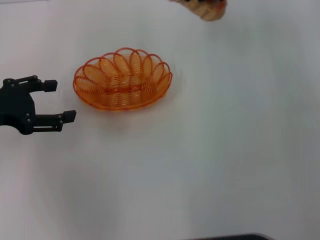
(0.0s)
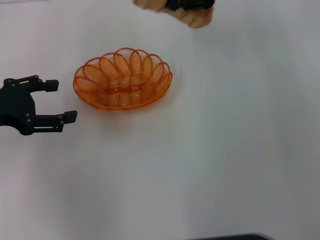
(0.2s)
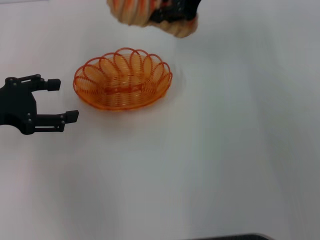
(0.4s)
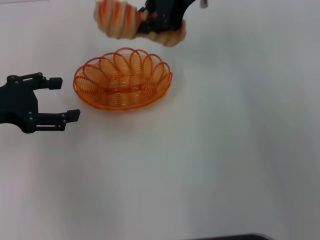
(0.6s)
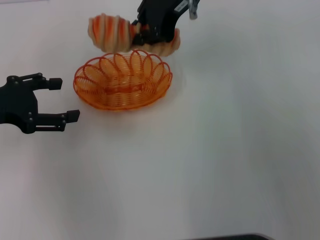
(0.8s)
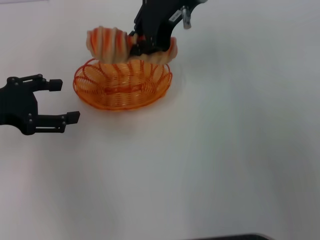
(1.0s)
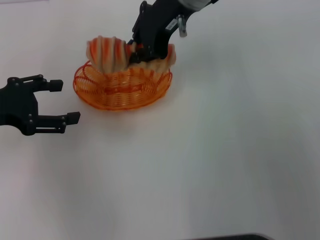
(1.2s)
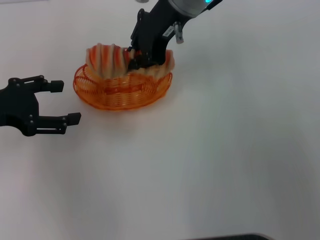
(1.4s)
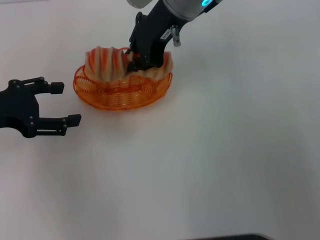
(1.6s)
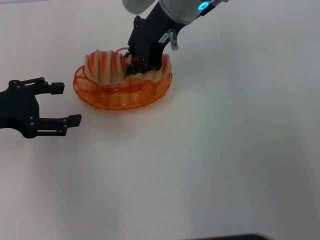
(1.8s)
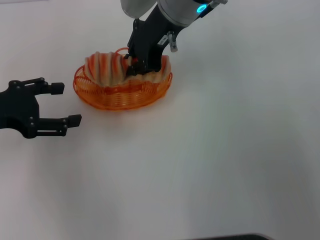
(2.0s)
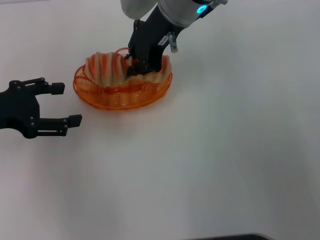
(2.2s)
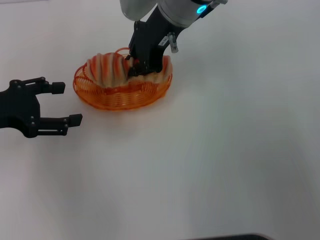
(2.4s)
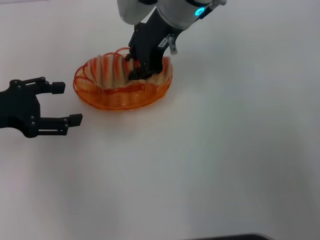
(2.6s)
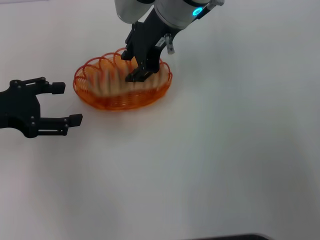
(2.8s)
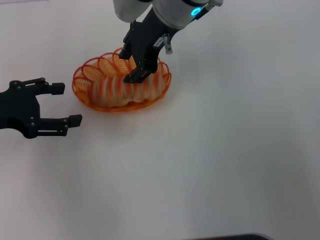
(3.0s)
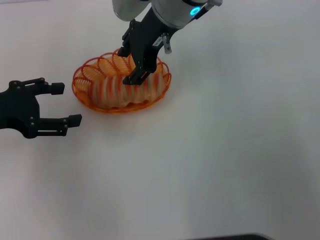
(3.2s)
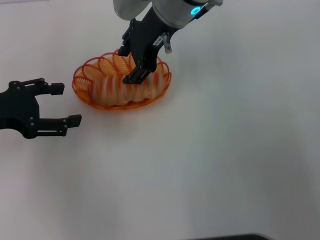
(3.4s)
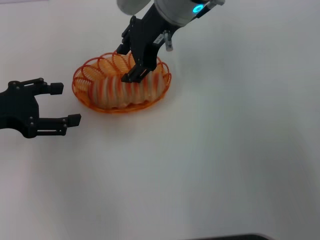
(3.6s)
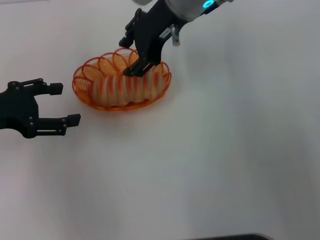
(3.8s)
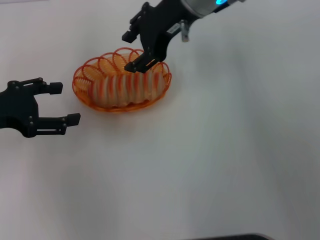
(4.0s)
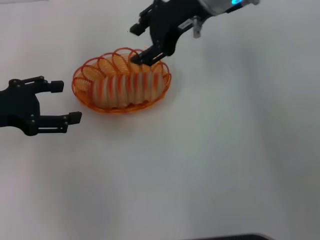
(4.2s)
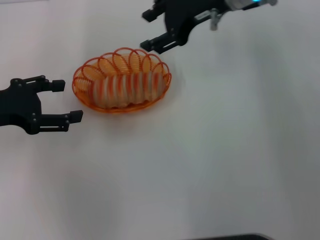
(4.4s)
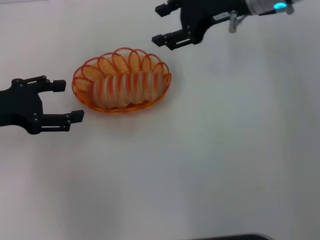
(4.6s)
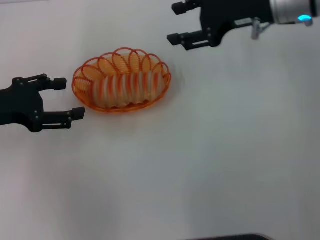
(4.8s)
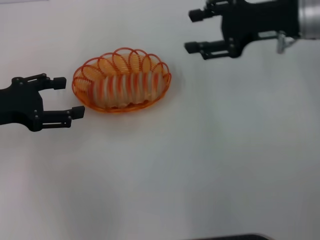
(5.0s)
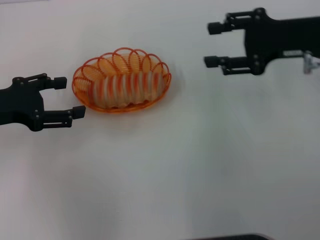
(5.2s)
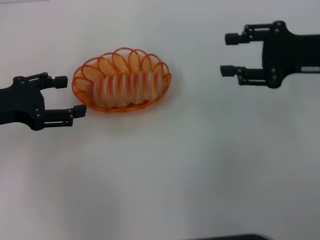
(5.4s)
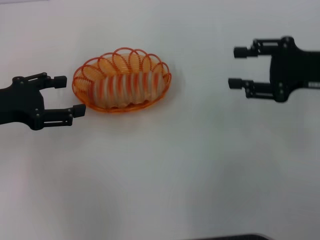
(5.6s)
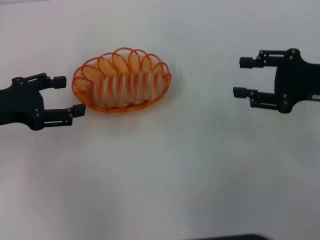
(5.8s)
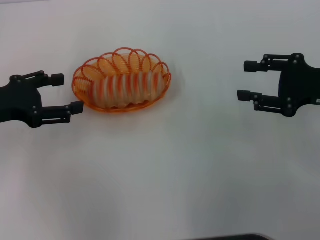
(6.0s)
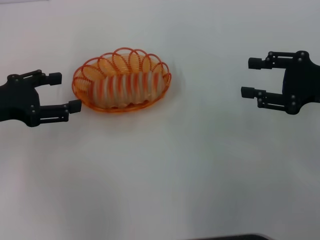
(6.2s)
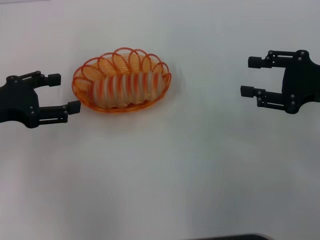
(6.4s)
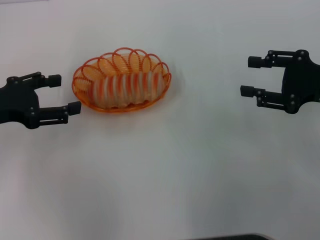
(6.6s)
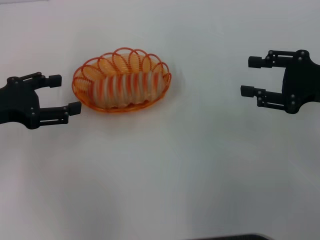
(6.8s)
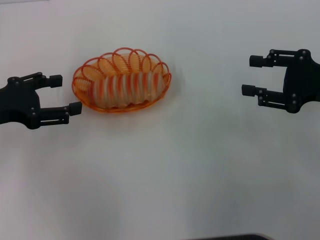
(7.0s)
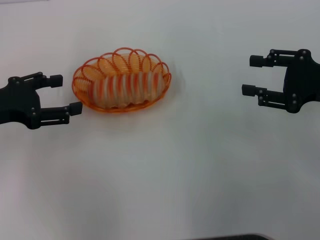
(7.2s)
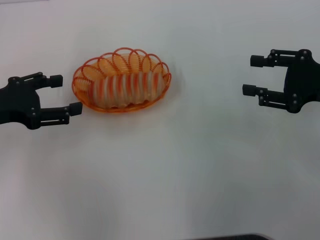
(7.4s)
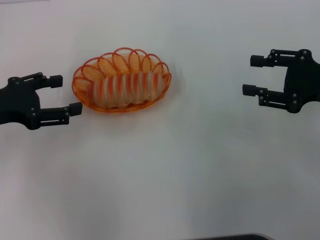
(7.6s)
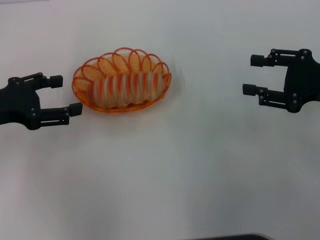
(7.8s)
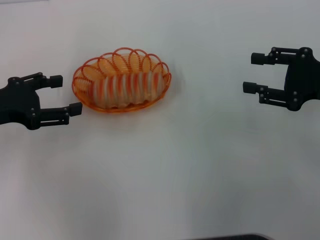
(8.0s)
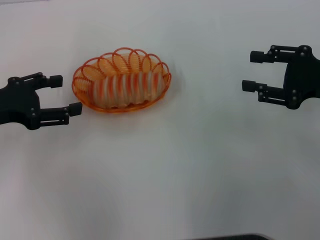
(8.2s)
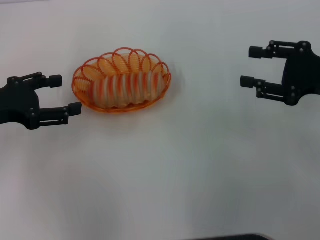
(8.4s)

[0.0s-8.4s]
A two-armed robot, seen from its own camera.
Step, 0.0s to 4.2s: Place the long bread into the basket with the right gripper.
0.0s to 1.4s: The right gripper is displaced to the left by about 15 cm.
1.4s to 2.8s: The grippers move only a little.
2.8s to 4.2s: The right gripper goes roughly 5 cm to the right, and opens.
4.2s to 5.6s: The right gripper heads to the right, backward and downward, covering roughly 25 cm.
5.6s to 7.0s: The grippers make only small movements.
7.0s to 8.4s: Both grippers stay put.

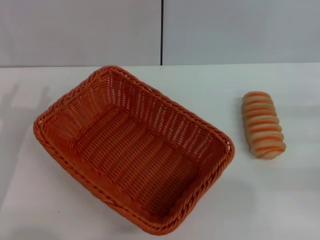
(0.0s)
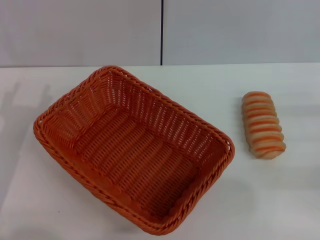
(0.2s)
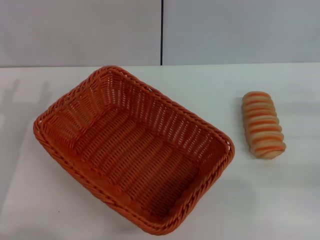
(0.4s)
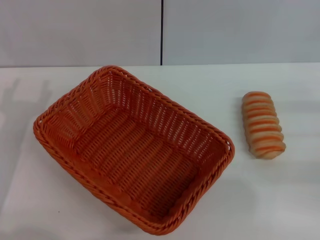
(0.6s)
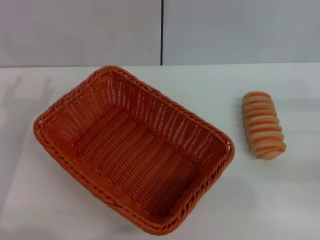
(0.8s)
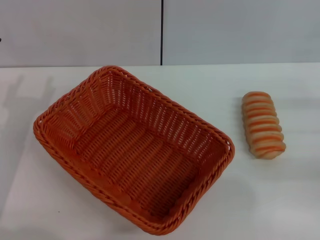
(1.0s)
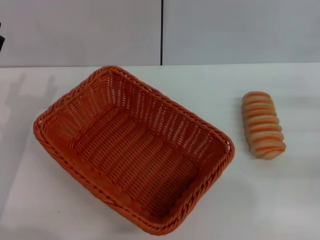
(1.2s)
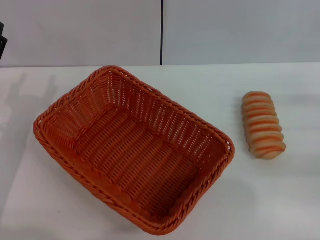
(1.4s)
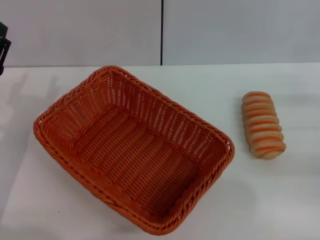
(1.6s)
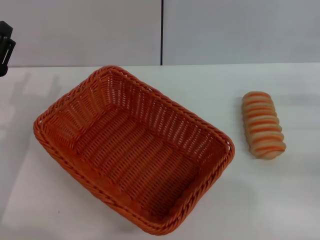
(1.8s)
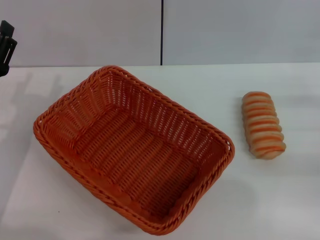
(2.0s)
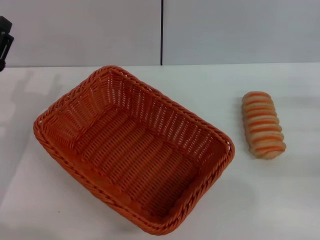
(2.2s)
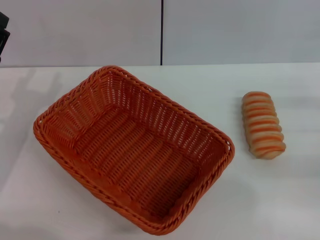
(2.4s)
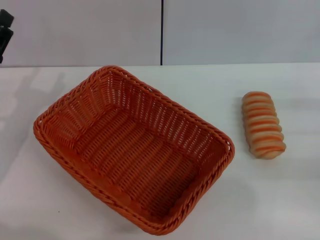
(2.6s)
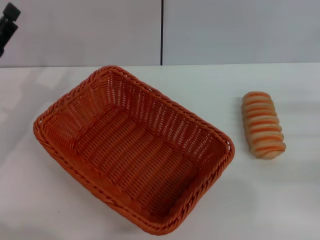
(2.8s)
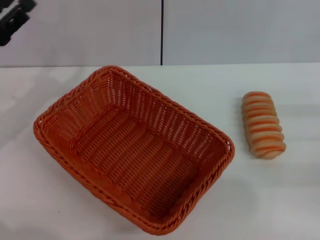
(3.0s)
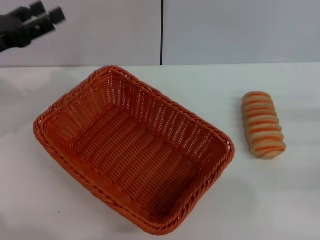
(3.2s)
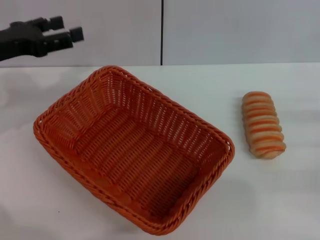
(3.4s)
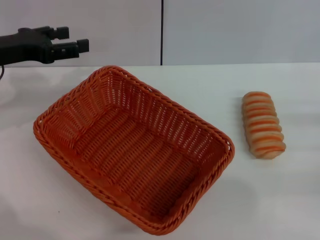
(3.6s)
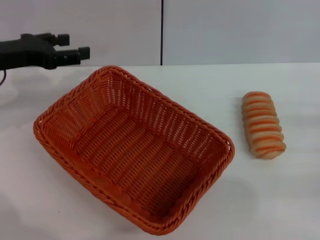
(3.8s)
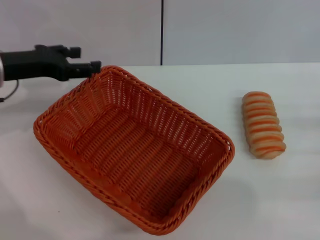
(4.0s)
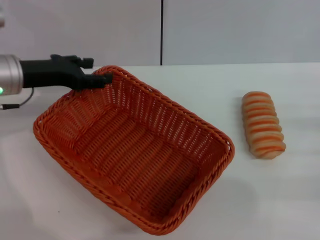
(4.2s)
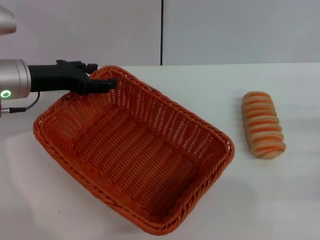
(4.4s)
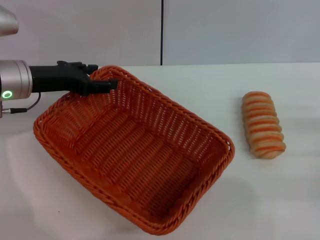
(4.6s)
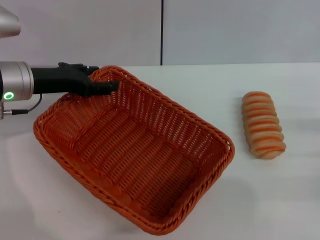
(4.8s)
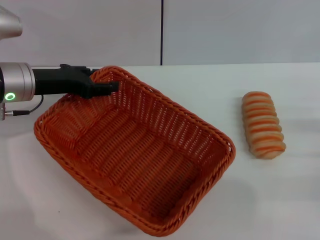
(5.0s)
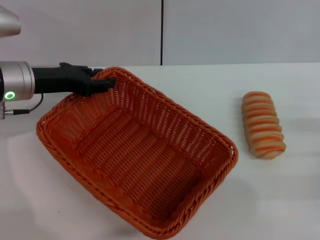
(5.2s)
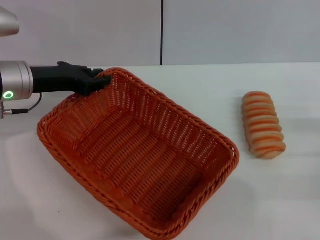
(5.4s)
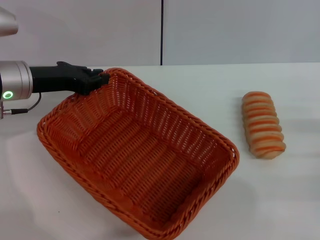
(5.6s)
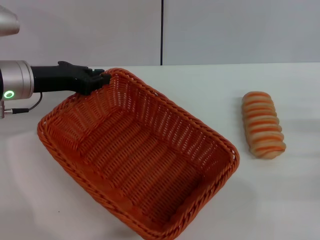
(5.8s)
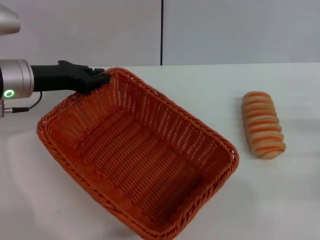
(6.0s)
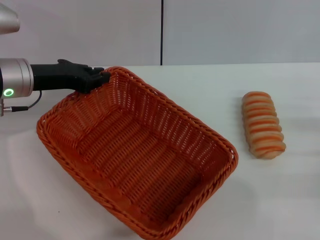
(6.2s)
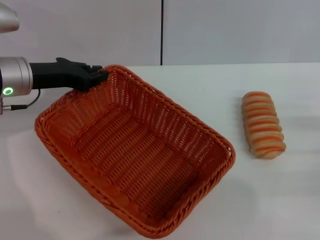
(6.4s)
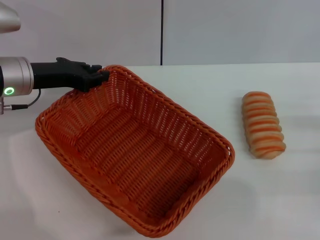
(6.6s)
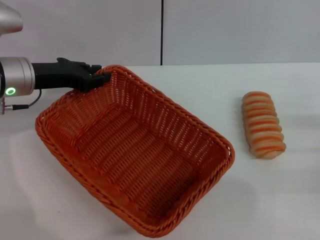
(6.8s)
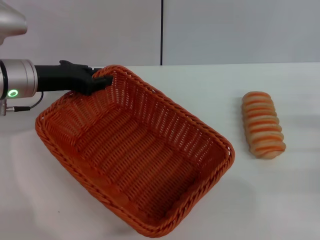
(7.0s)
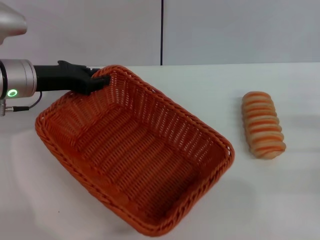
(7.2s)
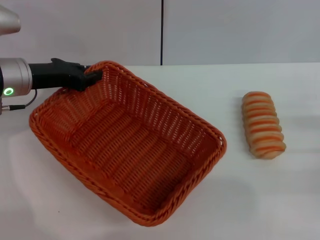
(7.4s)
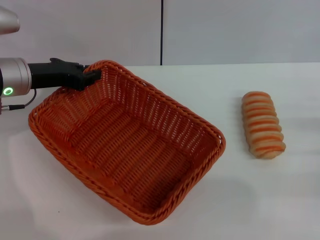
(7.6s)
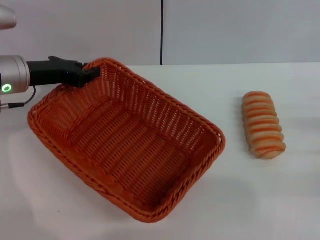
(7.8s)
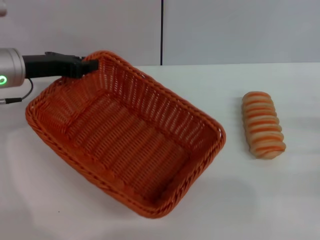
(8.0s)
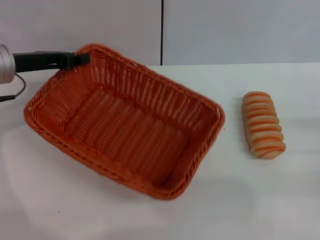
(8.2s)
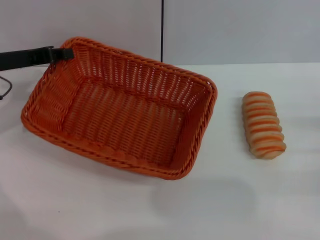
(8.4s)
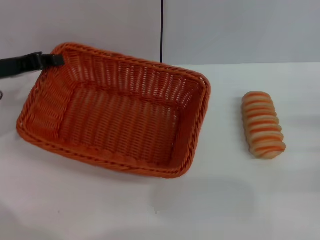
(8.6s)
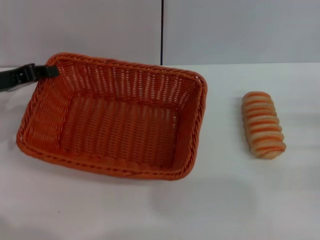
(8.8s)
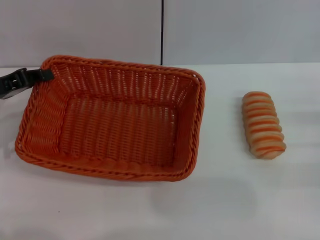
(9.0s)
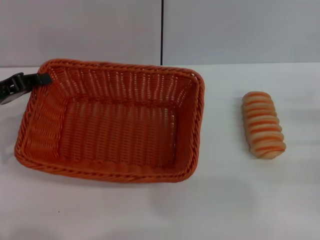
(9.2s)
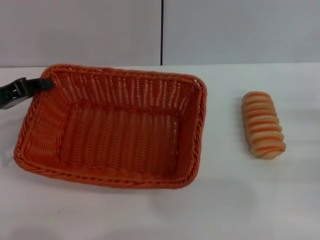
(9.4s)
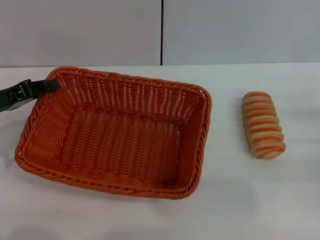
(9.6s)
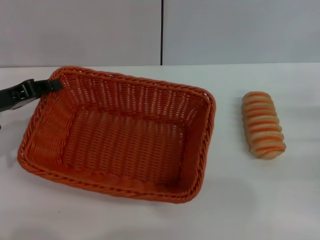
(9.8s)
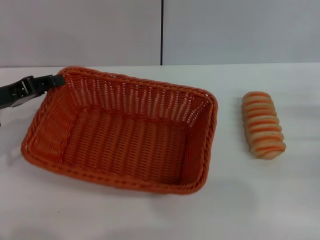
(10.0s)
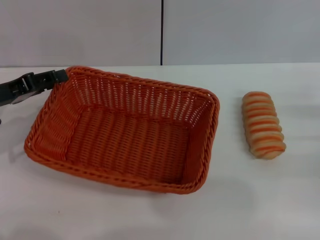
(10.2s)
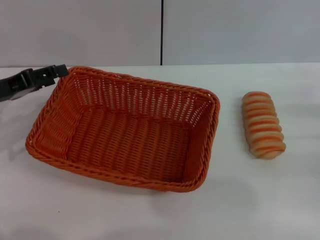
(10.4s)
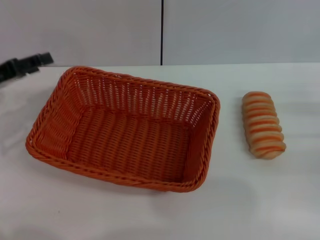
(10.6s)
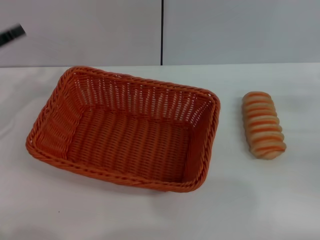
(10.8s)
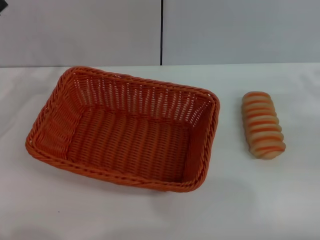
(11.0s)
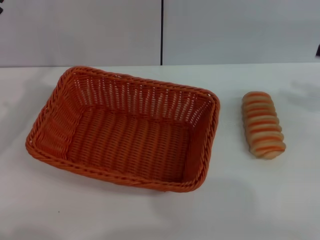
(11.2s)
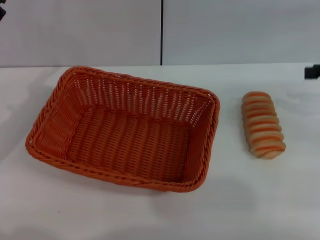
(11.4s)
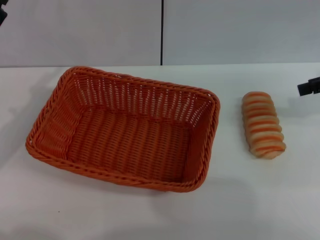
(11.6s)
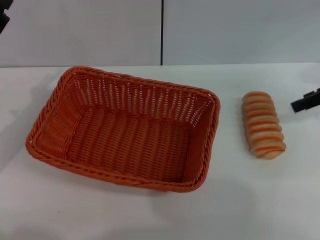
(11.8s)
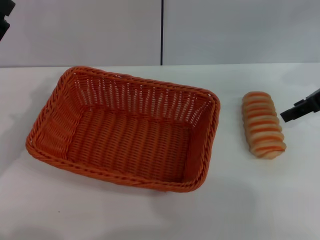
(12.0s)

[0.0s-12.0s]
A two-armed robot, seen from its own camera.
Step, 0.0s to 8.2s: Pick up the light basket with the left gripper.
Step, 8.6s to 10.4s: Place the light basket in the center of view with the left gripper.
1.6s to 3.0s: The left gripper is displaced upward and forward by some 10 cm.
3.0s to 4.4s: The left gripper heads to the right and forward, covering approximately 10 cm.
4.4s to 6.0s: The left gripper closes.
6.0s to 7.6s: The grippers stay close to where they were, moving slightly.
7.6s to 9.0s: The left gripper heads to the left and backward, covering about 10 cm.
9.0s to 10.4s: The left gripper opens its fingers.
10.4s to 12.0s: The right gripper heads upward, forward and to the left, covering approximately 20 cm.

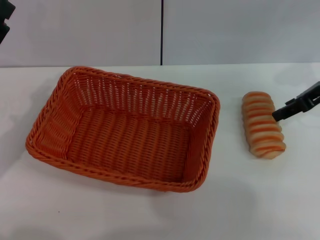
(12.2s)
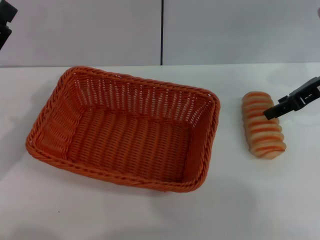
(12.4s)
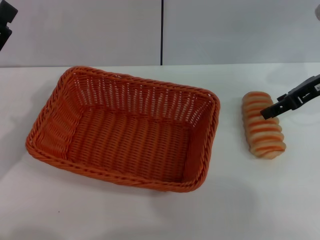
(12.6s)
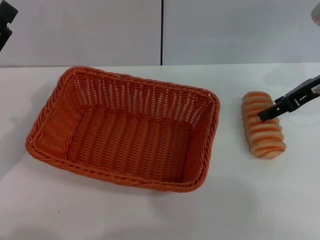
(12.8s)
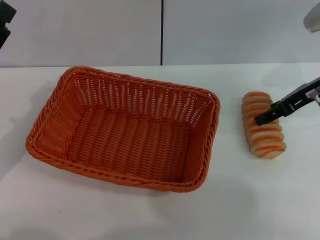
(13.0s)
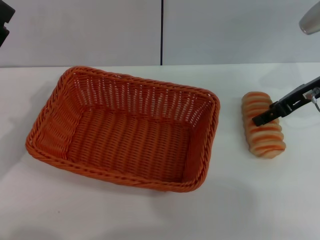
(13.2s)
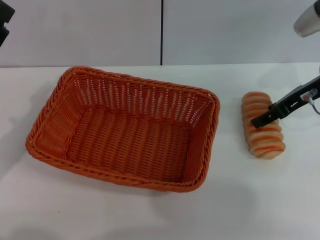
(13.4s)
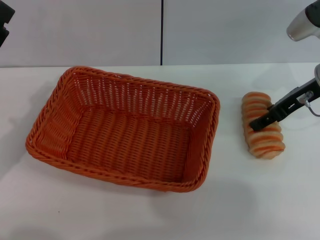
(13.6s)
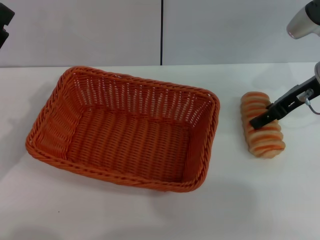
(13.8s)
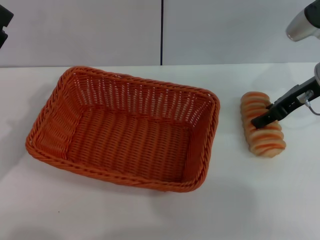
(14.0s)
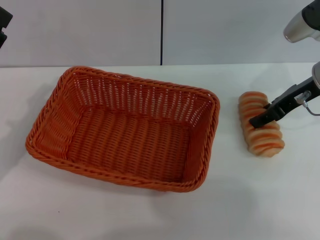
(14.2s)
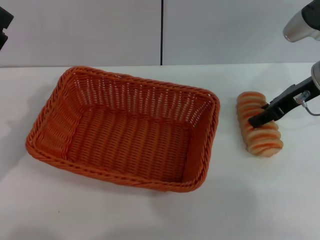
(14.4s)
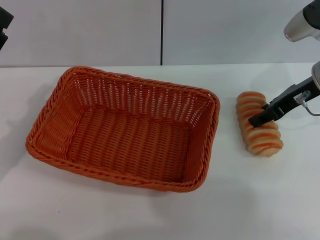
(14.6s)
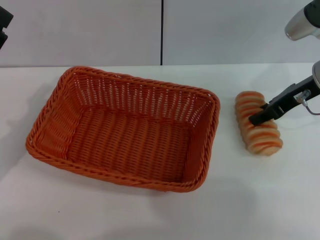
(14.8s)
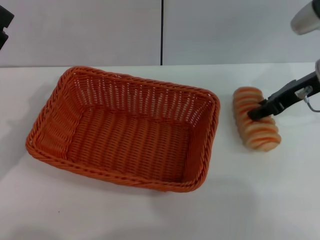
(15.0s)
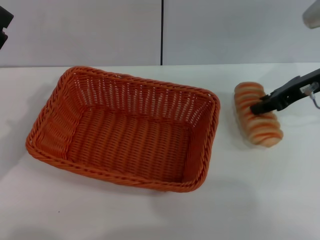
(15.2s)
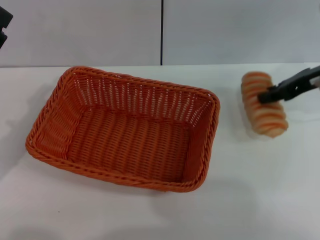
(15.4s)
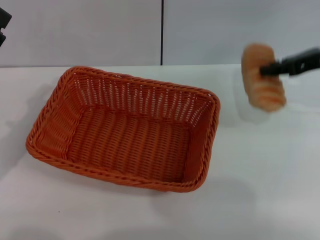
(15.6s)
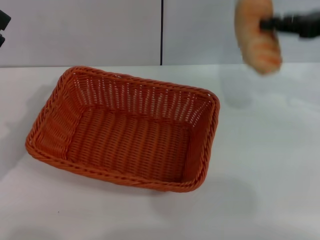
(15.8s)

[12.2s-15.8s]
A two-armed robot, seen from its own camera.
Step, 12.2s to 15.4s: Pick up the long bread with the right gripper.
12.2s to 14.0s: There are only small adjustments of the grippers.
14.0s to 15.8s: The right gripper shifts approximately 10 cm upward and to the right, and closes.
